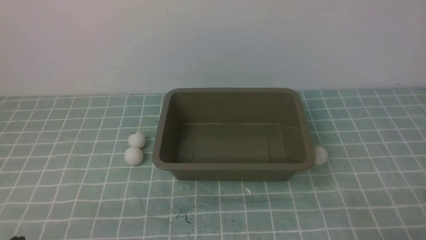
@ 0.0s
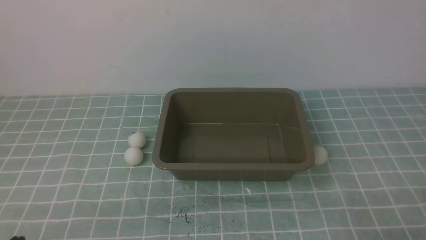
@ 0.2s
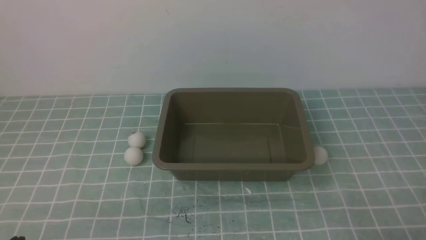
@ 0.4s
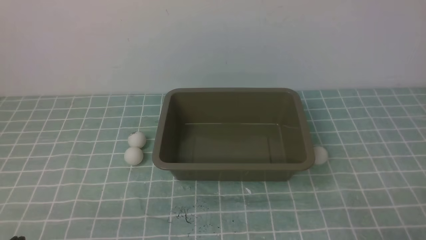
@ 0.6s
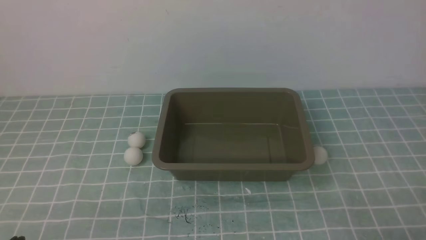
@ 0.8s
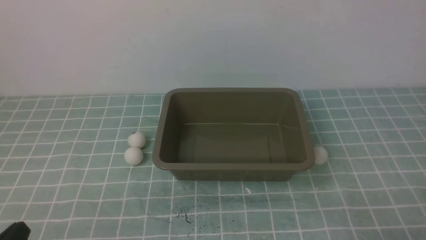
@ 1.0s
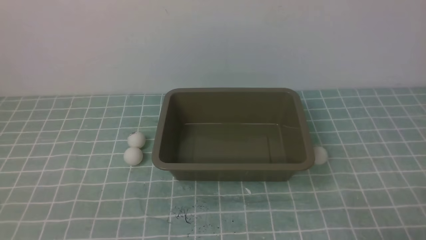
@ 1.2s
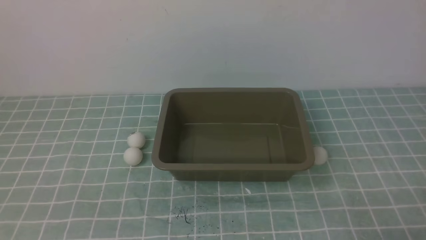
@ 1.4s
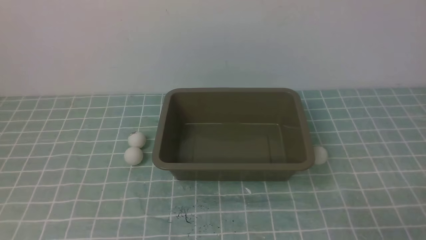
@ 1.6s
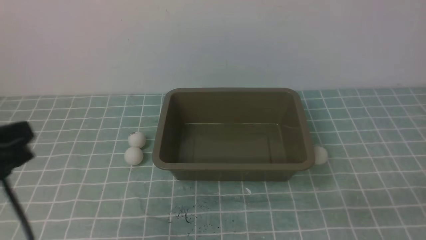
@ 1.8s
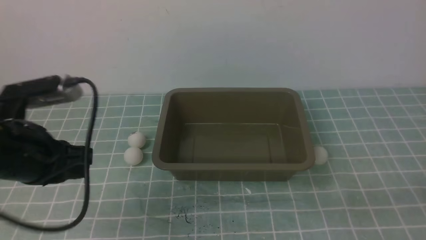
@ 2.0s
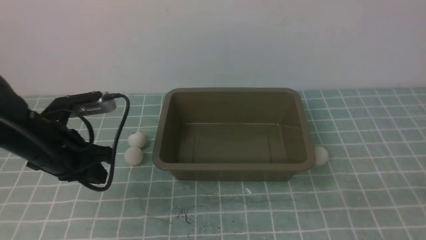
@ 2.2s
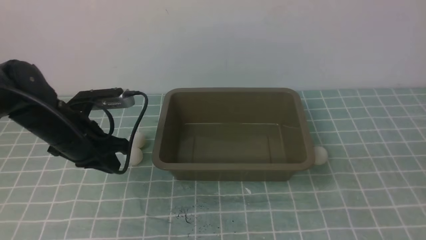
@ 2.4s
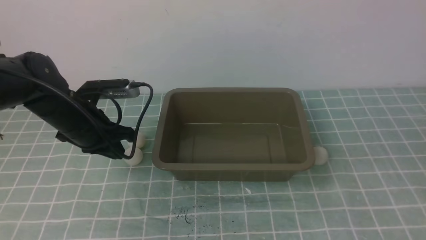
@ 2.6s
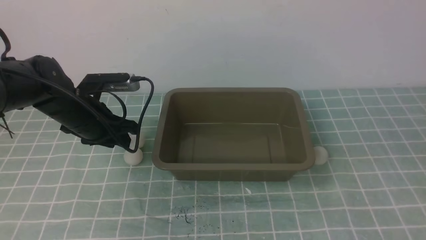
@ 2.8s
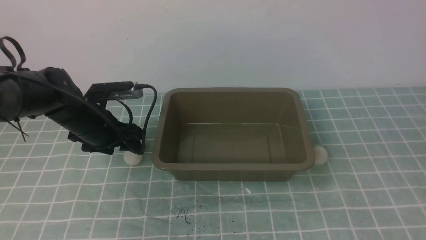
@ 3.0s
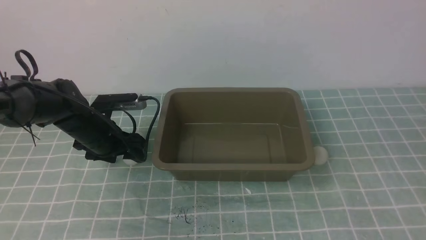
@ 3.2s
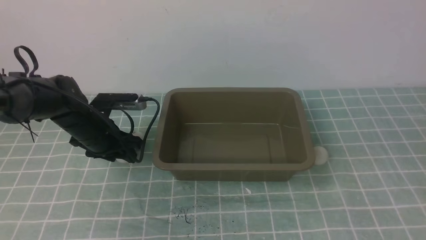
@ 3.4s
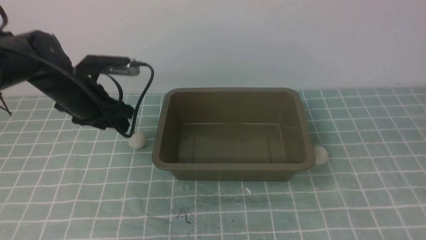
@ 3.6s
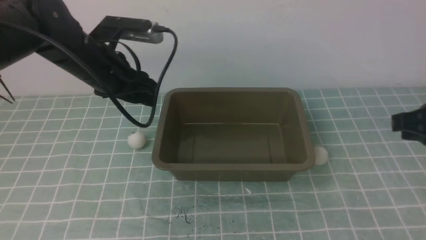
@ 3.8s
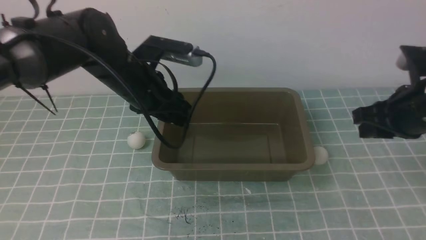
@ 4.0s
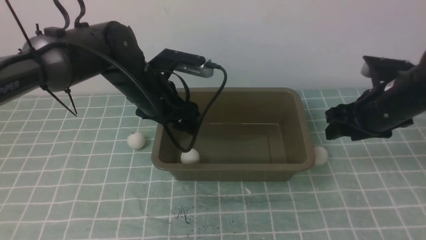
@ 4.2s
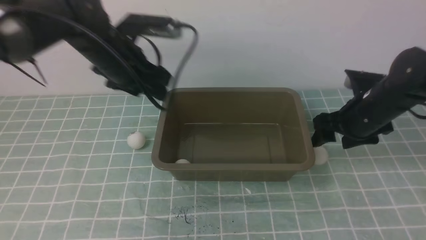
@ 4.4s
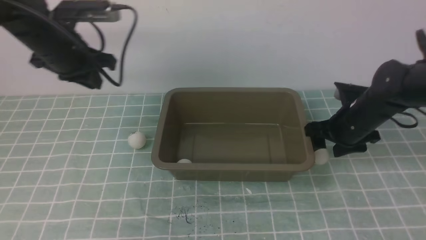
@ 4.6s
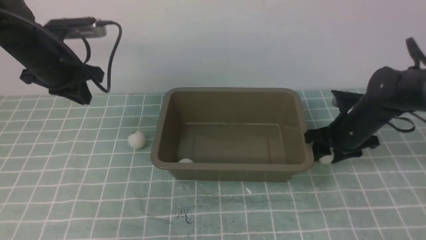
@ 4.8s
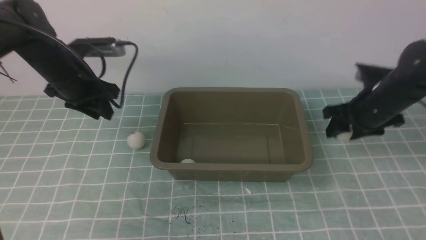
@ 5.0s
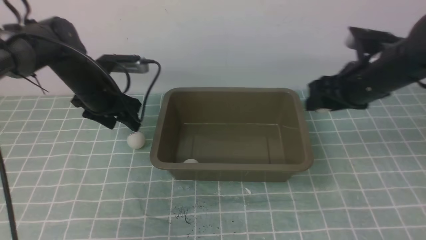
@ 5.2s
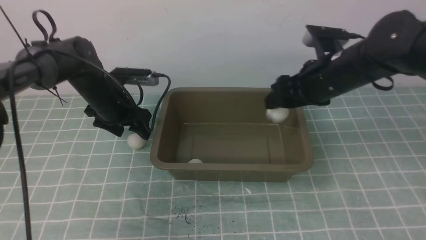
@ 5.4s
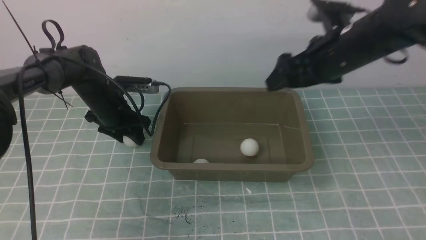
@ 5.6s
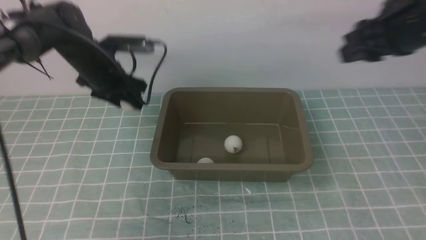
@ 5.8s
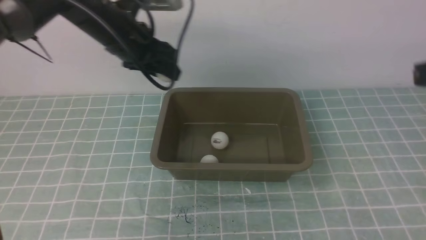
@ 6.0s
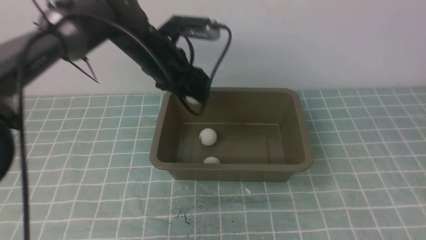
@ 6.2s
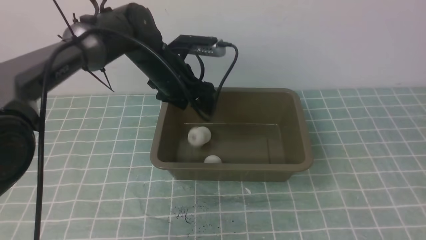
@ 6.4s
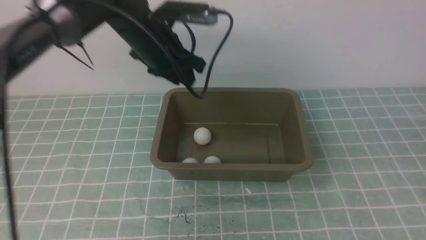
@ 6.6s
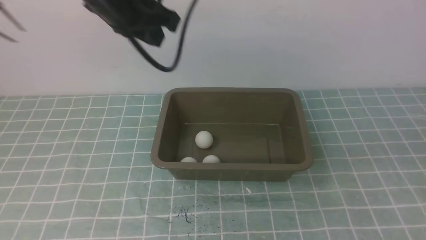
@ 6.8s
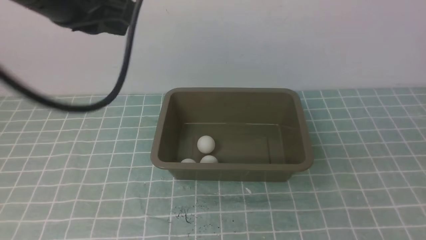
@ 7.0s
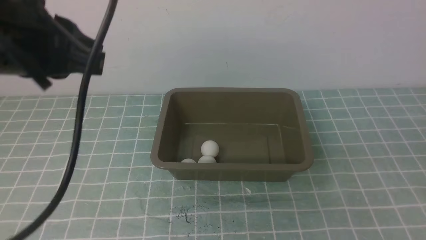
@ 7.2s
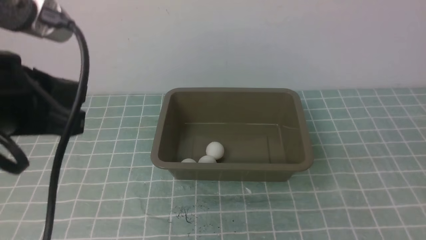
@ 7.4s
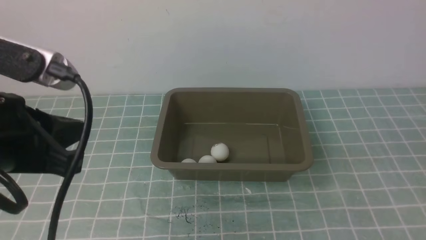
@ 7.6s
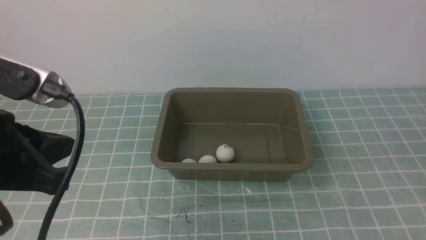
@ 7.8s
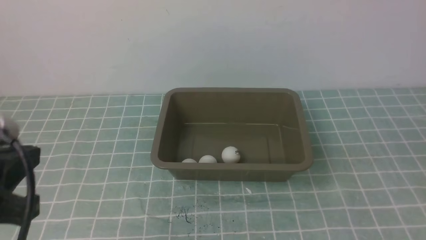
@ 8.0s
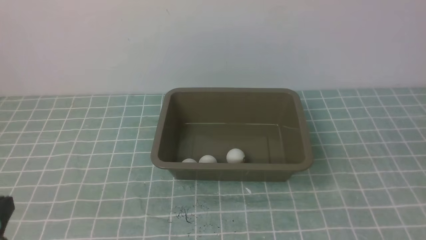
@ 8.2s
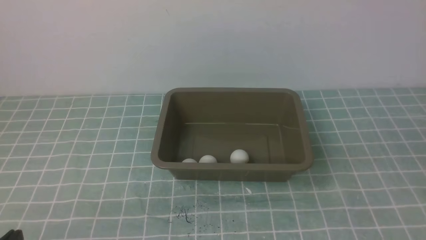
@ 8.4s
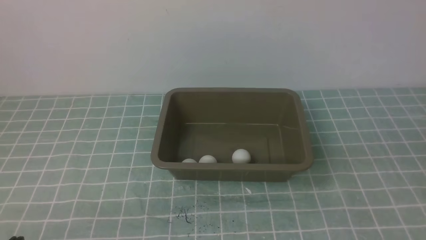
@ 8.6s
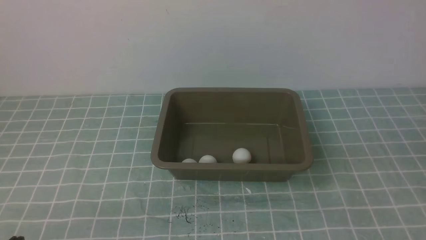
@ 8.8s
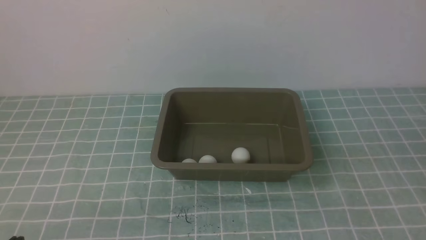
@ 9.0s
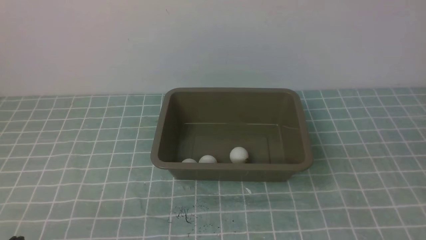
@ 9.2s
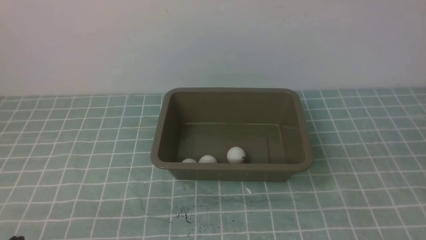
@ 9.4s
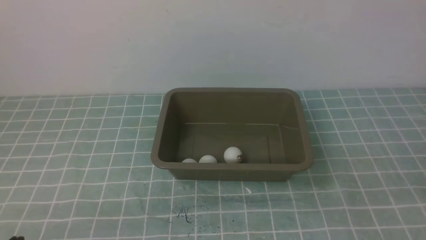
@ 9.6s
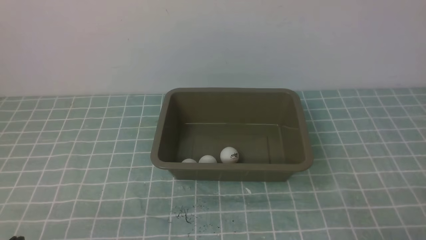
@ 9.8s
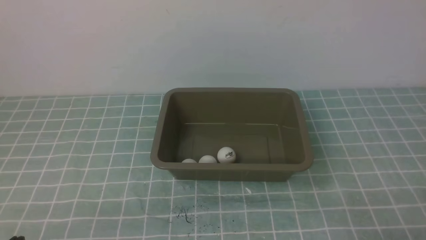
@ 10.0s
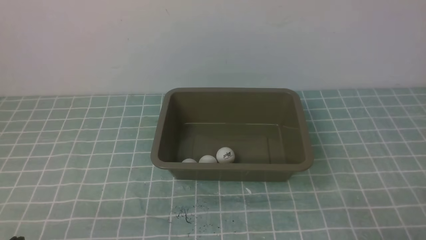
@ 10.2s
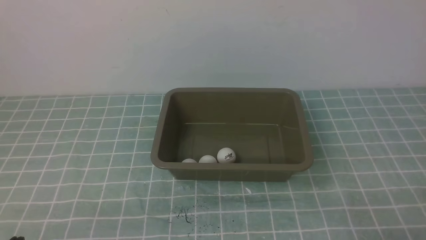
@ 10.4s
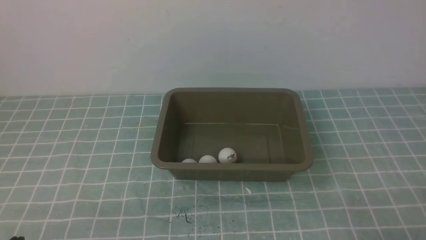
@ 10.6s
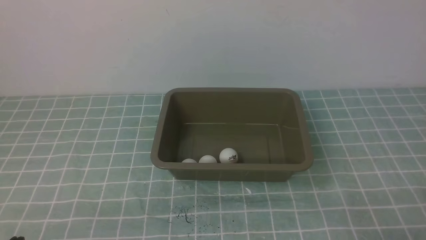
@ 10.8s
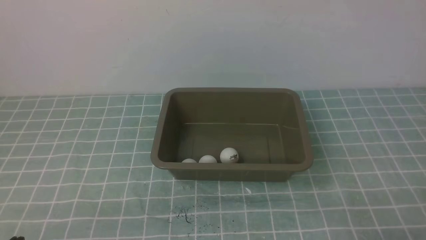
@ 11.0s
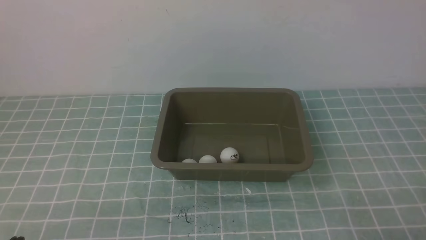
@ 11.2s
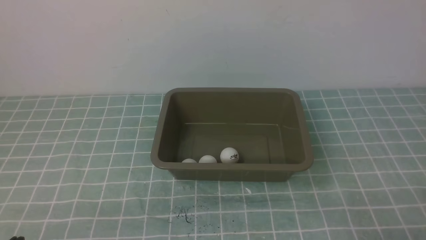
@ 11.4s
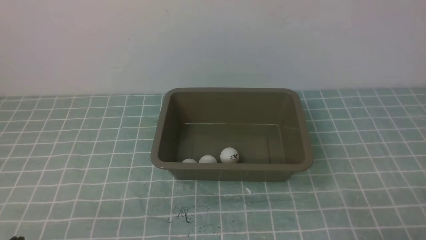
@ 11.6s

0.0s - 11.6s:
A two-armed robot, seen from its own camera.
Step, 0.0s - 3.4s: use the left arm to clamp the table tennis ball closest to it.
Step, 3.8s - 4.2s: use the left arm to put the table tennis ball into the box.
Step, 4.4s - 4.8s: use the right arm to clamp the table tennis ball closest to it.
Step, 5.0s - 5.4s: use the right arm to put the table tennis ball into the box.
Step, 6.0s - 6.6s: use the left arm to put the table tennis ball into the box.
1.4s - 2.8s: The left gripper goes some 30 cm forward, and opens its fingers, while the right gripper moves upward, some 15 cm.
2.8s - 4.4s: The left gripper heads upward and to the right, covering some 10 cm, and opens its fingers. Meanwhile the right gripper goes roughly 30 cm forward and downward, and opens.
4.4s - 5.8s: The right gripper heads upward, covering some 15 cm. The left gripper is displaced forward and downward by some 10 cm, and closes, then reopens.
5.8s - 7.2s: The left gripper travels backward and upward by about 30 cm, and closes up. The right gripper shifts approximately 30 cm backward, and closes its fingers.
7.2s - 8.8s: The left gripper is displaced downward and backward by roughly 30 cm.
10.2s - 11.6s: Neither gripper changes place.
